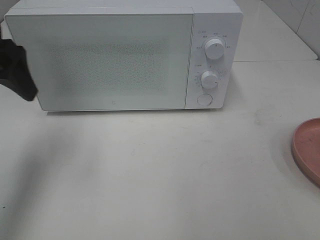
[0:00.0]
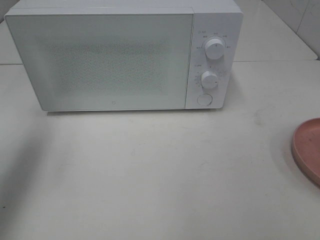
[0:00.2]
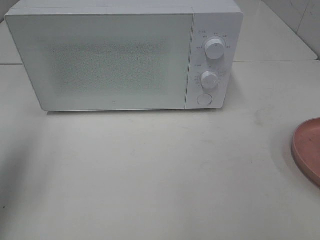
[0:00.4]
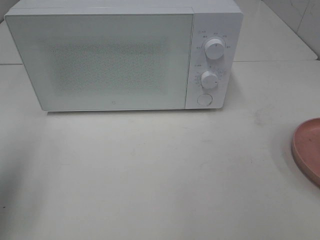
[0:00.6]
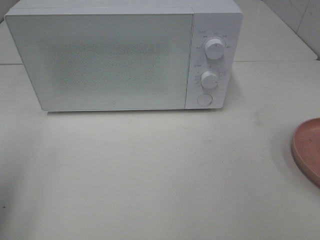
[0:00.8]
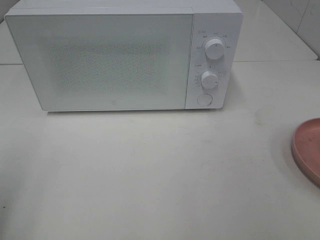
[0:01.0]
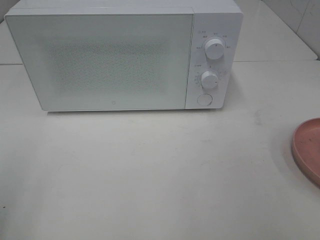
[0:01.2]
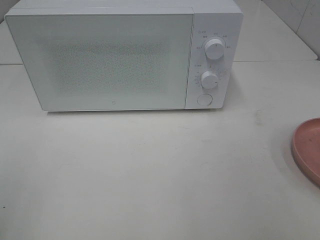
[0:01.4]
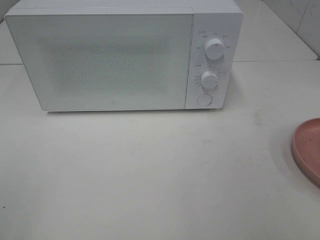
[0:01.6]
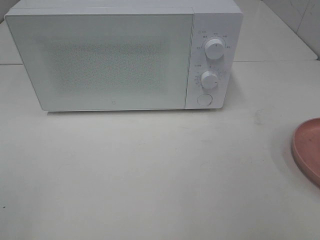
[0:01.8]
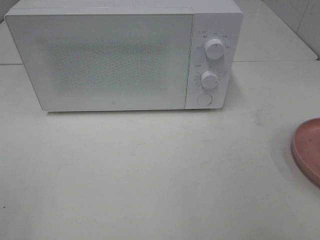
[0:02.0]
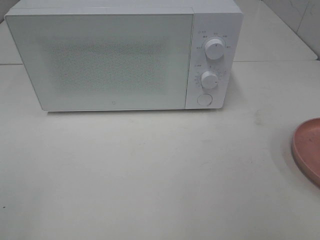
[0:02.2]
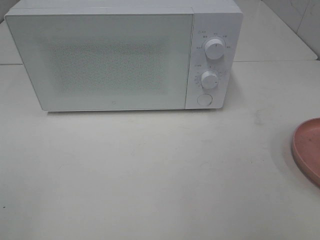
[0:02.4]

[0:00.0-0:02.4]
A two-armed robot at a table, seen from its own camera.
Task of the whole recording: Heat the burger.
0.0 to 1.2 s: The left gripper moves backward, about 20 cm.

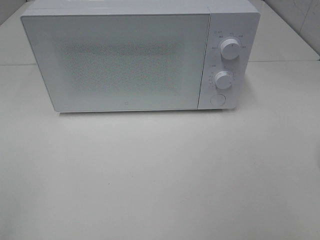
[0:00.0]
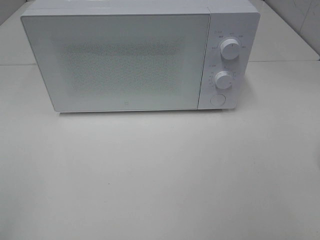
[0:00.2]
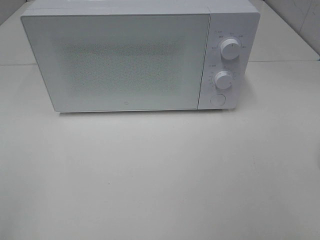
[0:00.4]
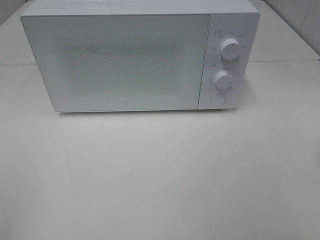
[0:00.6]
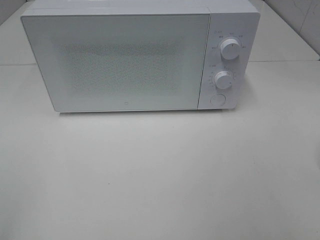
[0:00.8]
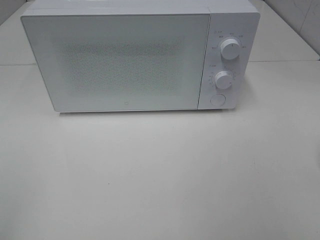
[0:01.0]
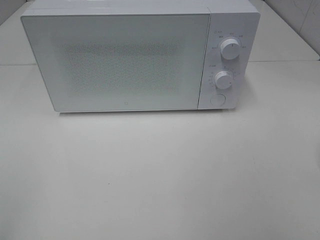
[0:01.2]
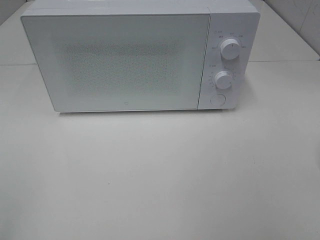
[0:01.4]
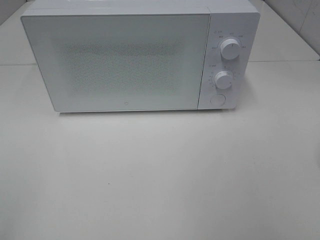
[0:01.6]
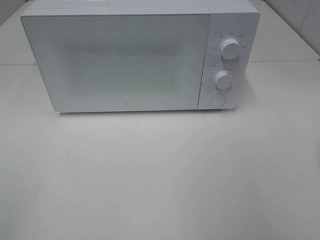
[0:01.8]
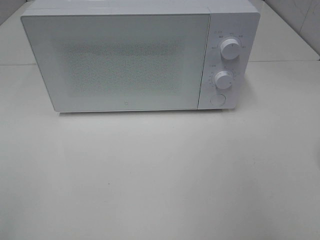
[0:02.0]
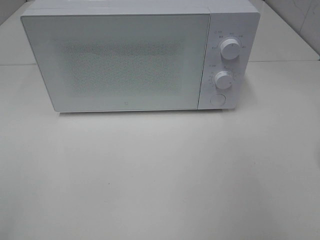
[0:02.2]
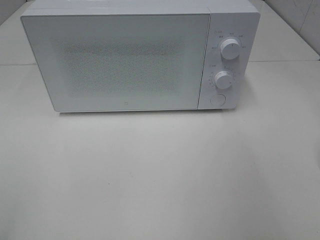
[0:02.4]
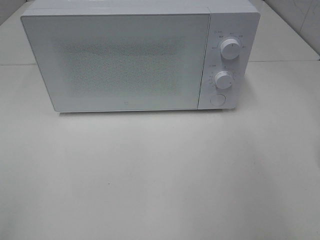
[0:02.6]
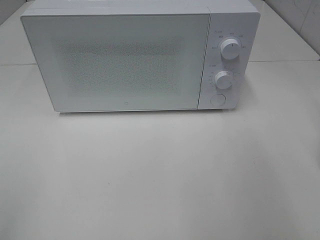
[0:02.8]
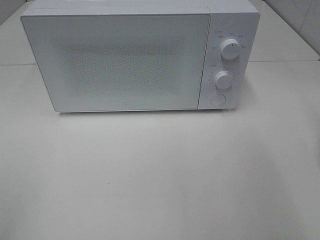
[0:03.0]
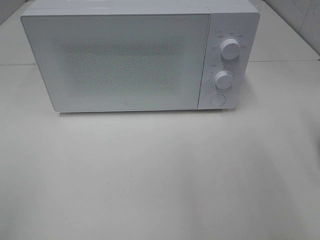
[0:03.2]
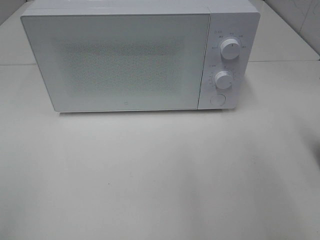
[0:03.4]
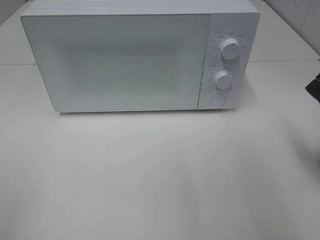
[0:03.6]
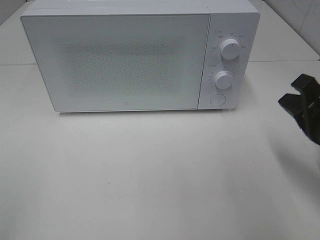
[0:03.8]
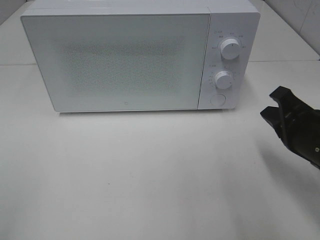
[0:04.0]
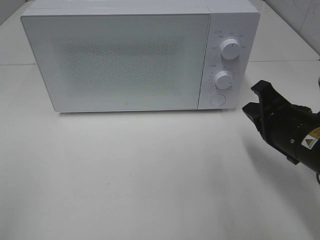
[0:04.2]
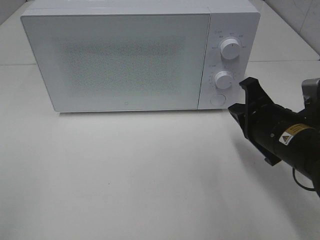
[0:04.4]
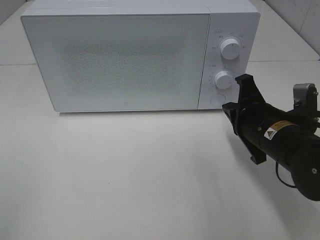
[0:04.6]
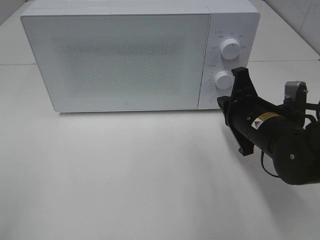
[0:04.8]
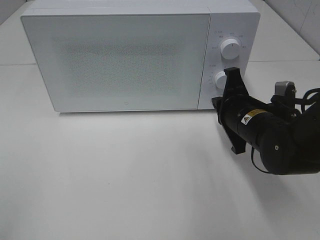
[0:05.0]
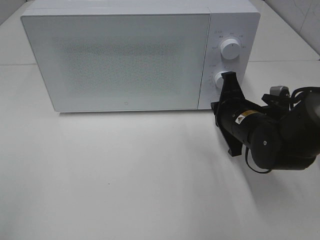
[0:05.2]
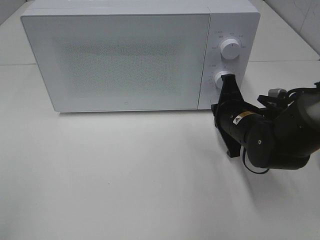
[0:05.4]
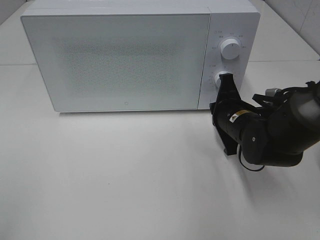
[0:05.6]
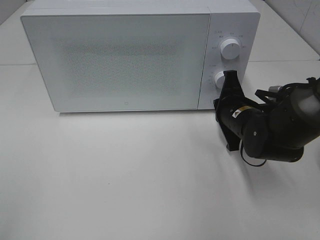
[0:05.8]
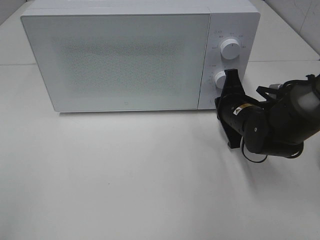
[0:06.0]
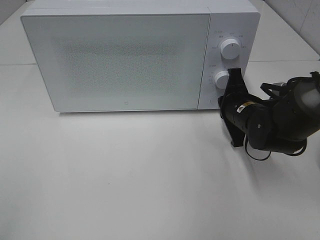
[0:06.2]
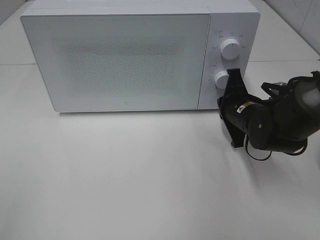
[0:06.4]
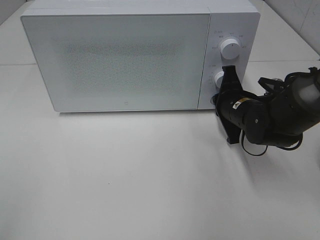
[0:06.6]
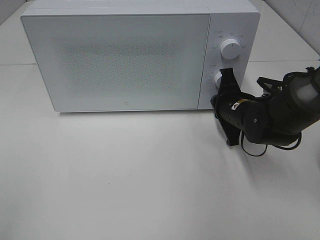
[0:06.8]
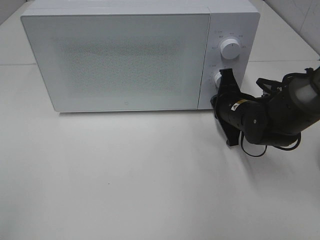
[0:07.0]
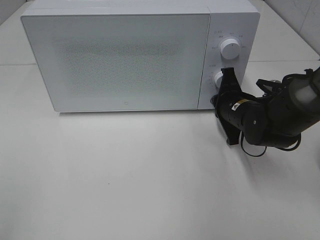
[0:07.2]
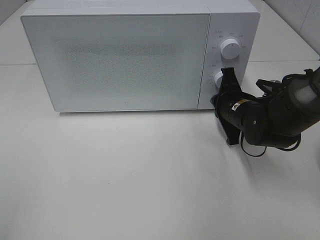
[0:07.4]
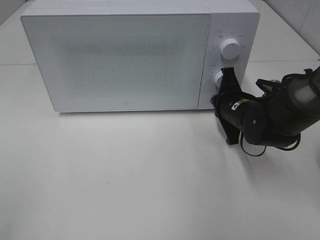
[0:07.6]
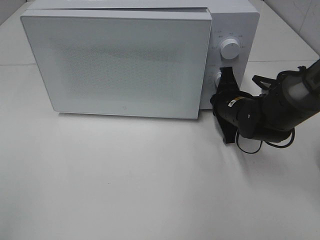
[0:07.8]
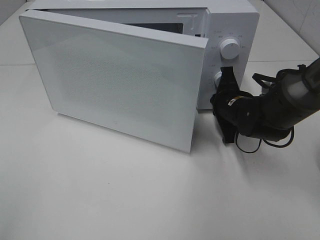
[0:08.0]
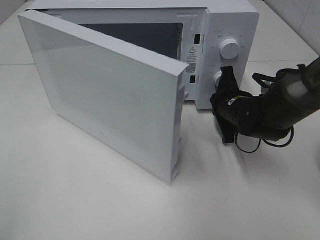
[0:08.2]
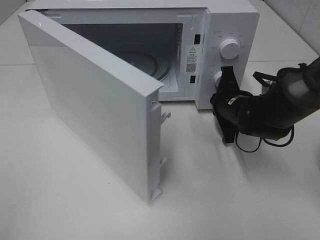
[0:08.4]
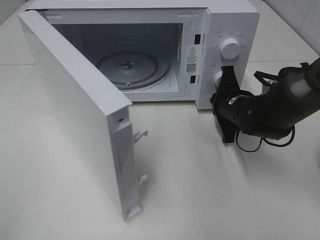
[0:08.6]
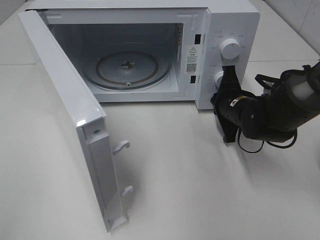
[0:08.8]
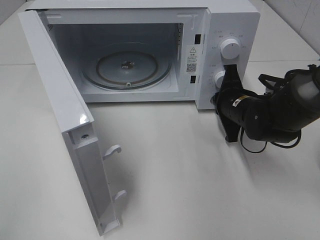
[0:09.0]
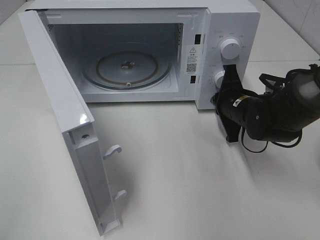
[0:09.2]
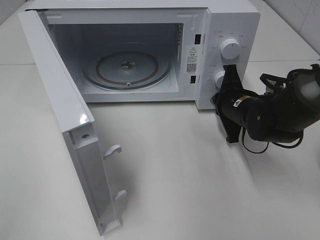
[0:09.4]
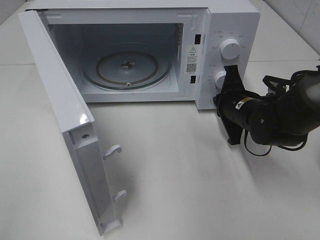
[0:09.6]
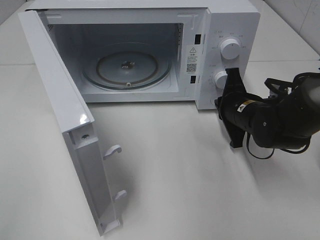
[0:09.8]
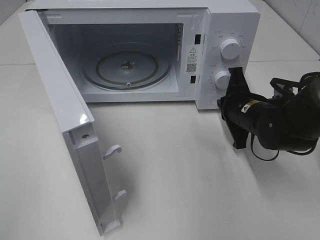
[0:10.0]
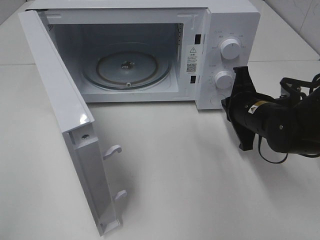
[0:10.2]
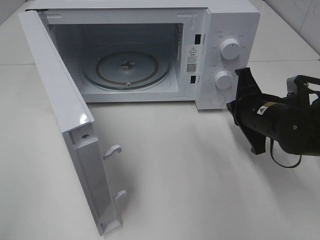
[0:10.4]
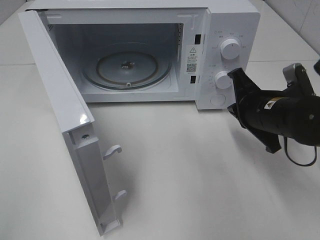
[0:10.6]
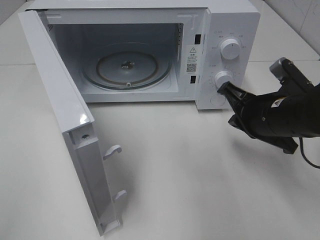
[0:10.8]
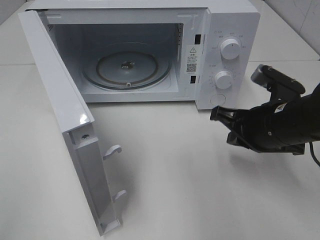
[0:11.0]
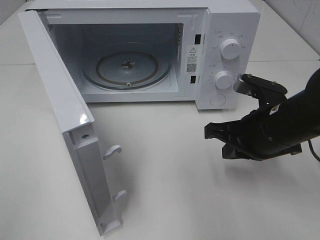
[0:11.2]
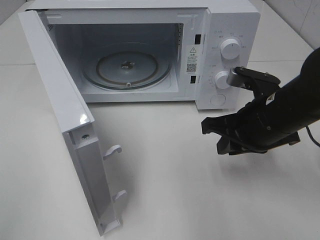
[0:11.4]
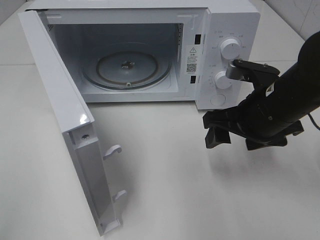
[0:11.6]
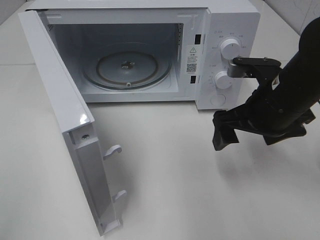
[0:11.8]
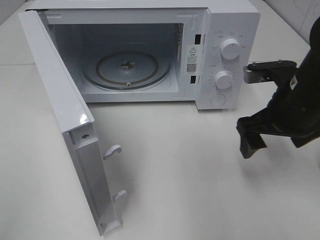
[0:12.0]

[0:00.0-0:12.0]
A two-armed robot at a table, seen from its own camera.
Task of the whole recording: Heat the burger.
Step, 0.0 to 9.6 s: Right hand: press the switch.
3.0 to 4.4 s: The right gripper travels to the left and downward by approximately 15 cm.
4.4 to 6.0 s: The right gripper goes about 10 cm forward.
6.0 to 7.6 s: The grippers move only a little.
9.0 to 10.4 s: The right gripper travels backward by approximately 5 cm.
10.4 to 12.0 s: The right gripper moves upward, about 5 cm, and opens up.

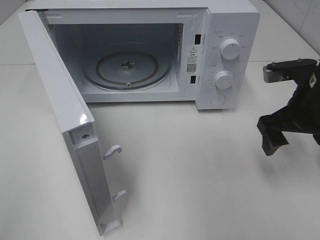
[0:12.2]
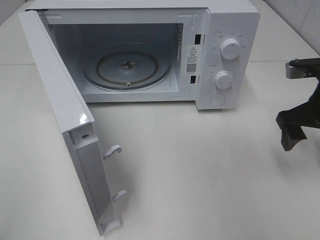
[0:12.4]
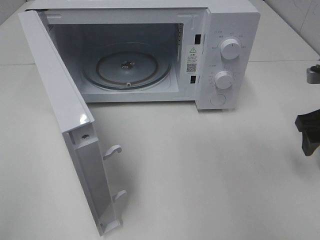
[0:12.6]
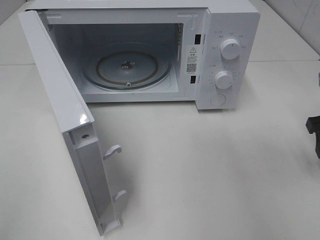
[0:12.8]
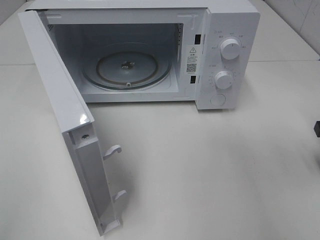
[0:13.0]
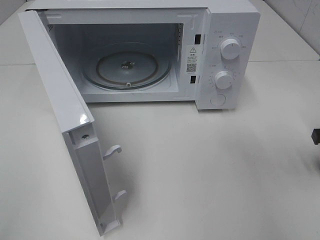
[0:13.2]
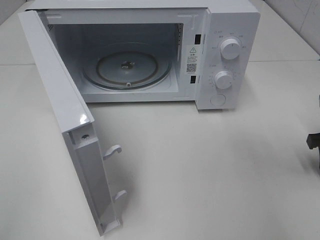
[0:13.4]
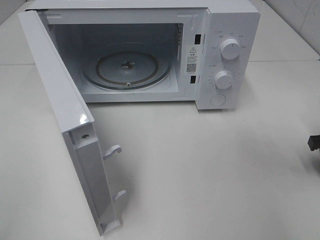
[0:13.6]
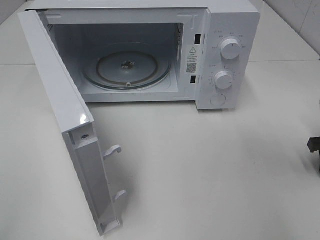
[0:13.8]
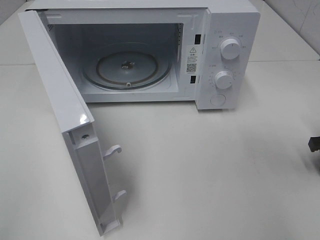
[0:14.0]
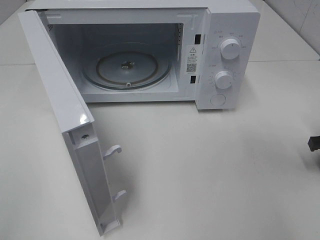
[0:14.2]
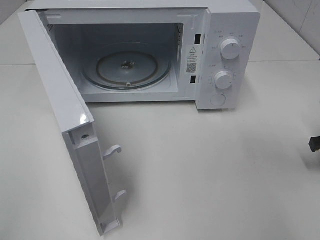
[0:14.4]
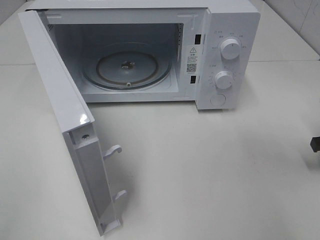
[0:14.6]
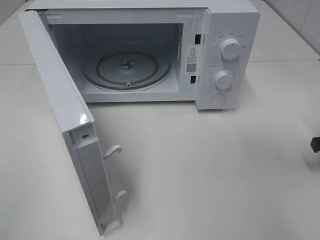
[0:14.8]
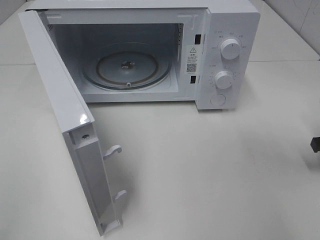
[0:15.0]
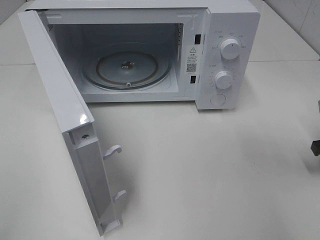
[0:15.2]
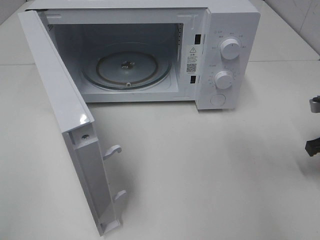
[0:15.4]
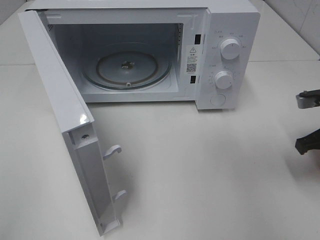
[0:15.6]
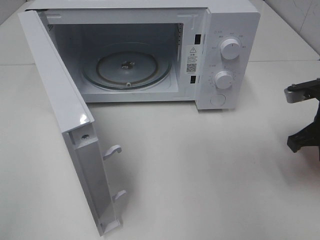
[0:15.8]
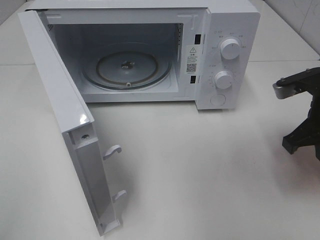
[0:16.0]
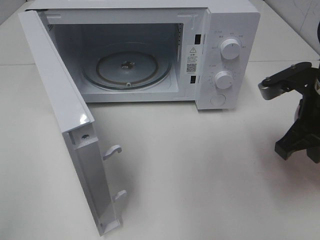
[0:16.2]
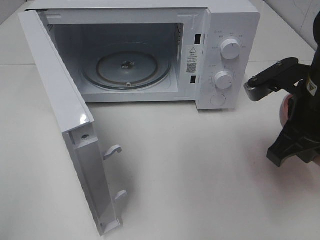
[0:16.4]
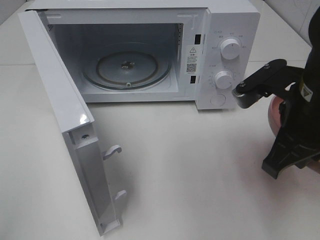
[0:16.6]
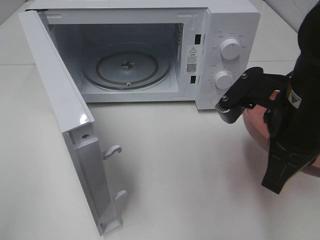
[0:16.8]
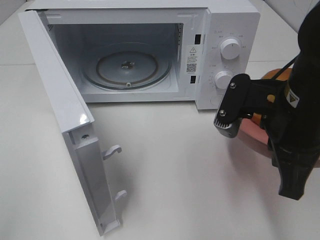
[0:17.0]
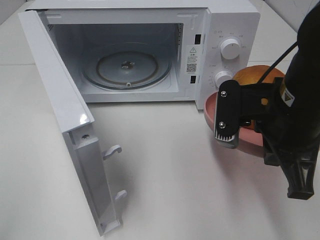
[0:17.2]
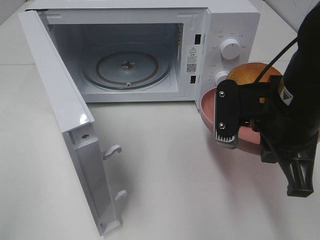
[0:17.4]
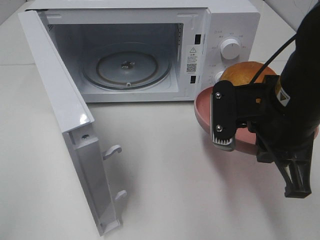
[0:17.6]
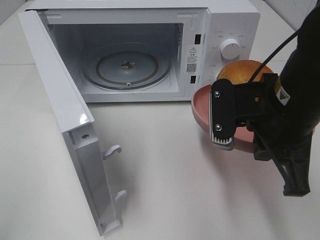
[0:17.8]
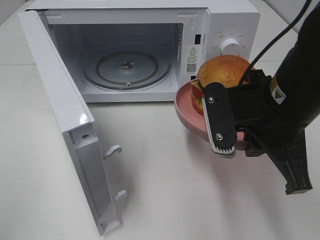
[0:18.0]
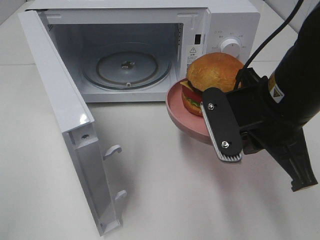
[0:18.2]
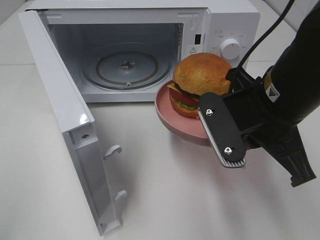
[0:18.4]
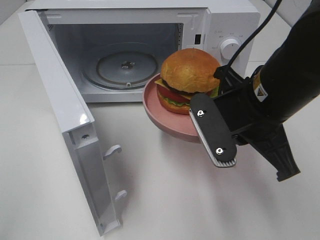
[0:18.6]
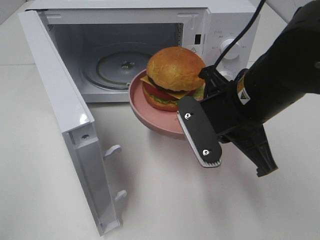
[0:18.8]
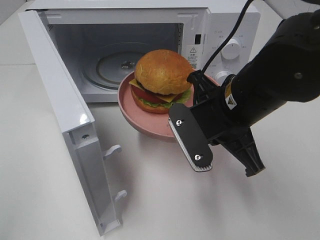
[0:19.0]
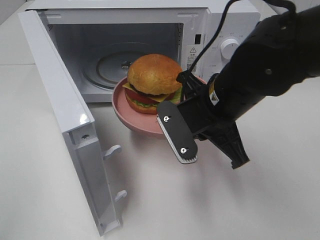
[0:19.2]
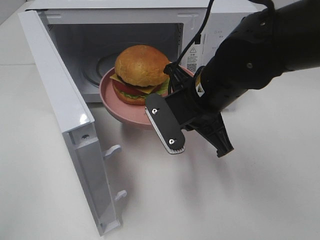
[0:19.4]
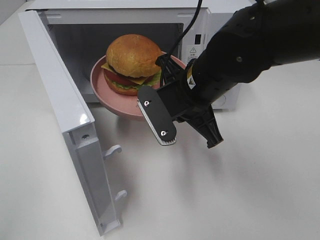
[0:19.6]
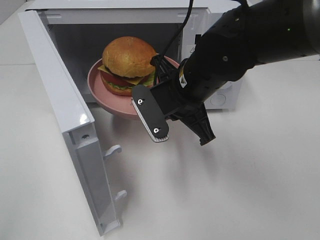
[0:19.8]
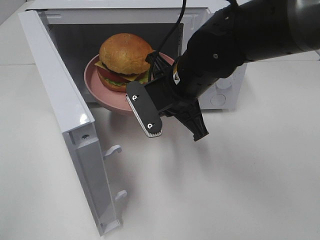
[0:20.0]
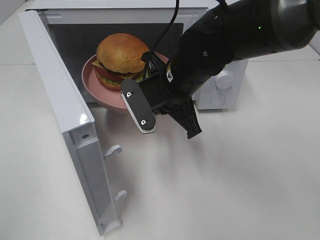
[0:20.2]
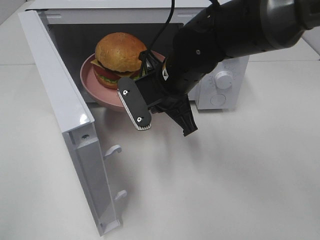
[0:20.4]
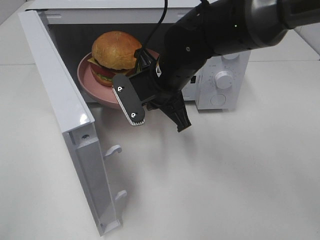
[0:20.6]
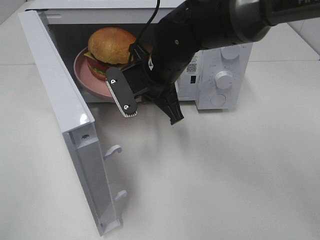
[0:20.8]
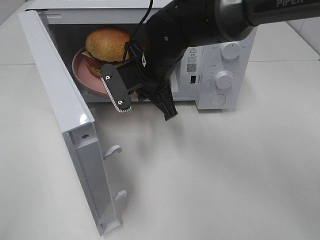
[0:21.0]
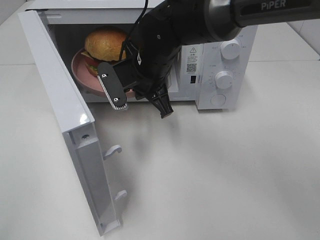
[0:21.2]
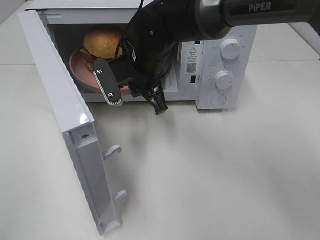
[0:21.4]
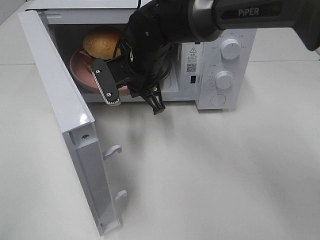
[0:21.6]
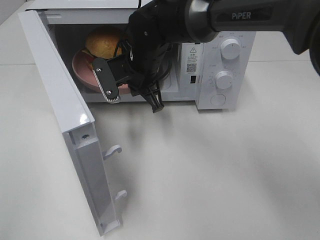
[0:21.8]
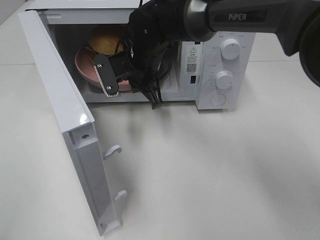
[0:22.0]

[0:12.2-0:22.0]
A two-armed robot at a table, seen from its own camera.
Task of the whole recording: Heat the burger.
Step, 12.2 to 14.6 s: Right hand: grab the plate with the hamburger.
12.2 to 13.6 s: The right gripper shifts some 15 cm to the right and downward.
15.0 to 16.4 s: The right gripper goes about 20 cm to the left, upward and backward.
16.4 to 17.8 s: The right gripper travels to the left by about 5 cm.
17.8 to 19.2 s: The right gripper goes some 5 cm to the left.
19.2 to 20.6 s: The right gripper is displaced forward and to the left by about 10 cm.
20.6 to 22.0 s: The right gripper heads forward, covering approximately 5 cm.
